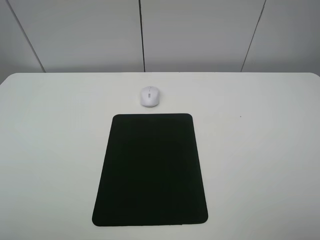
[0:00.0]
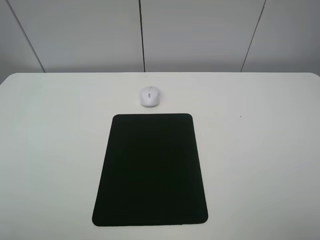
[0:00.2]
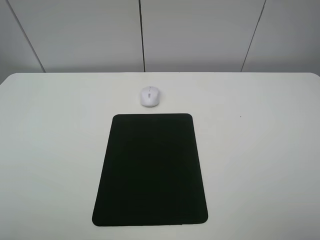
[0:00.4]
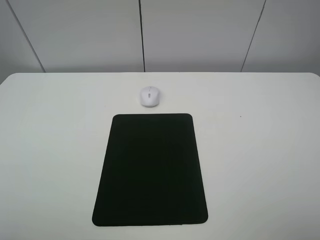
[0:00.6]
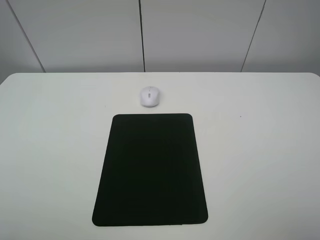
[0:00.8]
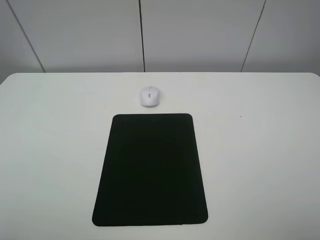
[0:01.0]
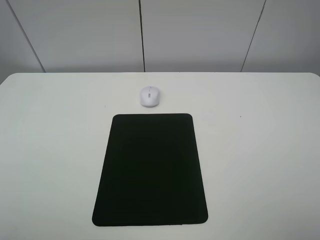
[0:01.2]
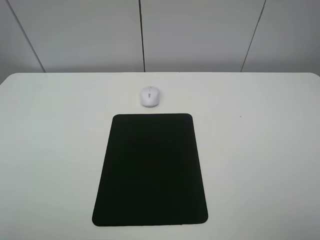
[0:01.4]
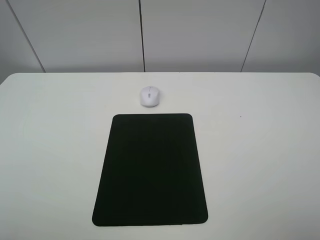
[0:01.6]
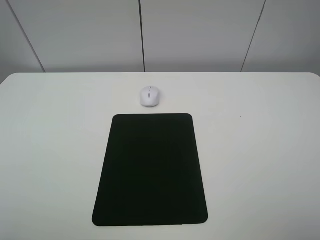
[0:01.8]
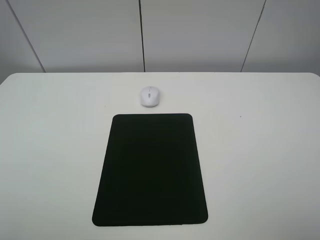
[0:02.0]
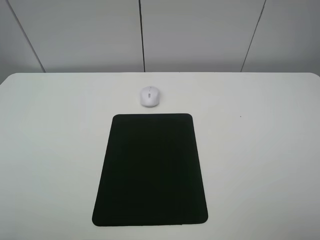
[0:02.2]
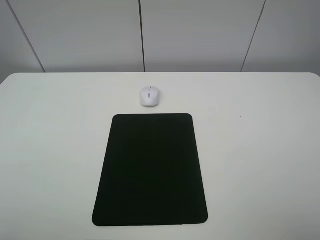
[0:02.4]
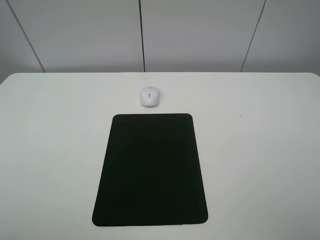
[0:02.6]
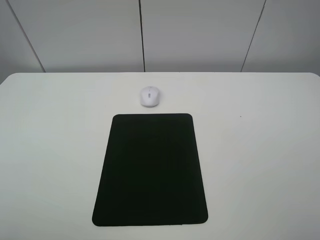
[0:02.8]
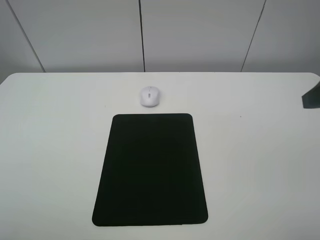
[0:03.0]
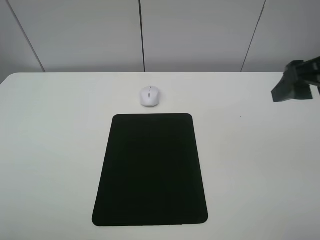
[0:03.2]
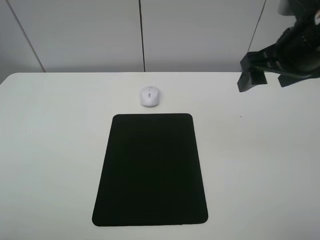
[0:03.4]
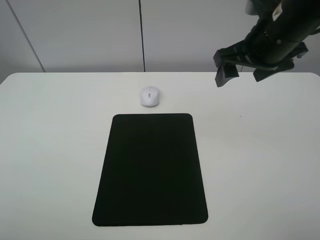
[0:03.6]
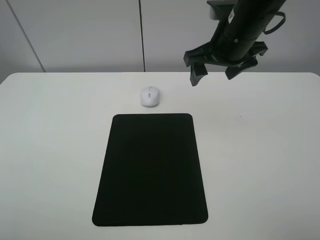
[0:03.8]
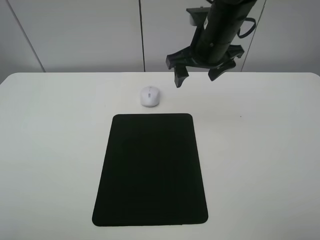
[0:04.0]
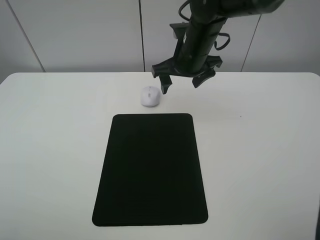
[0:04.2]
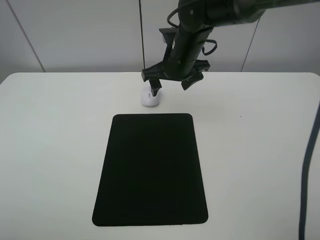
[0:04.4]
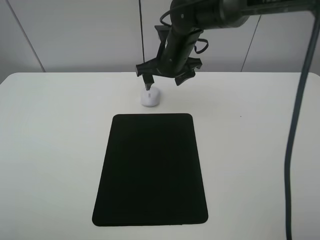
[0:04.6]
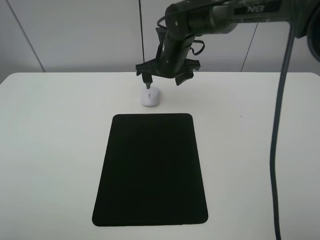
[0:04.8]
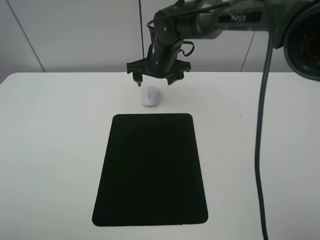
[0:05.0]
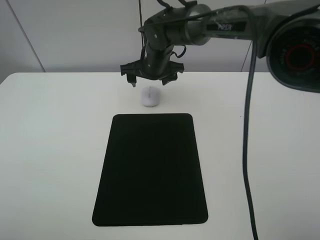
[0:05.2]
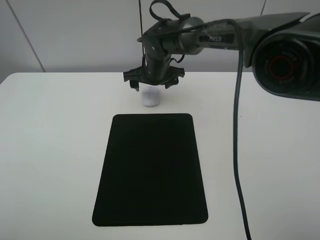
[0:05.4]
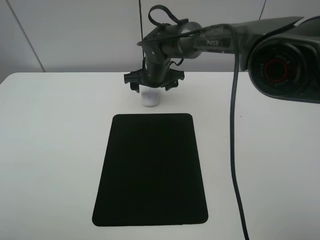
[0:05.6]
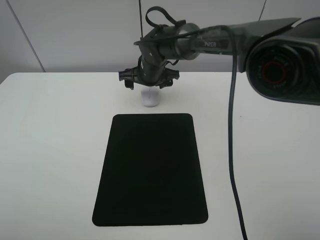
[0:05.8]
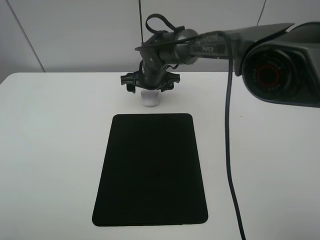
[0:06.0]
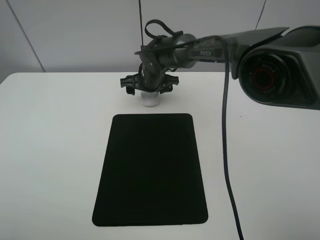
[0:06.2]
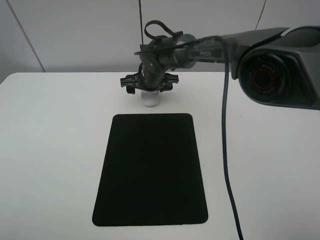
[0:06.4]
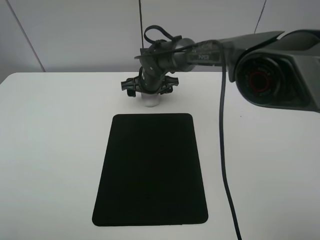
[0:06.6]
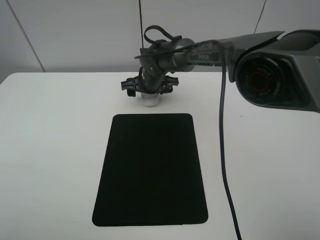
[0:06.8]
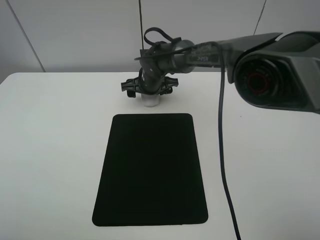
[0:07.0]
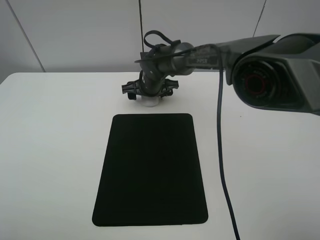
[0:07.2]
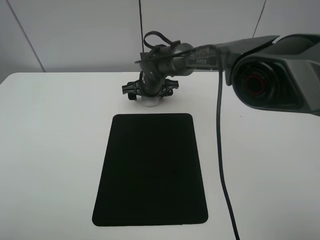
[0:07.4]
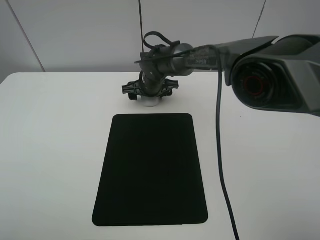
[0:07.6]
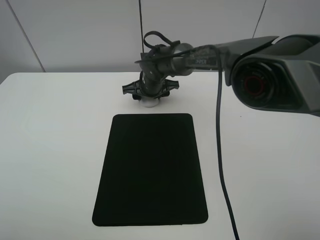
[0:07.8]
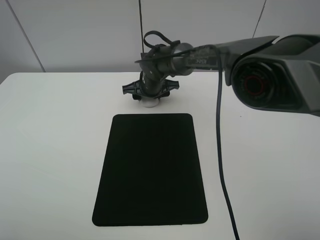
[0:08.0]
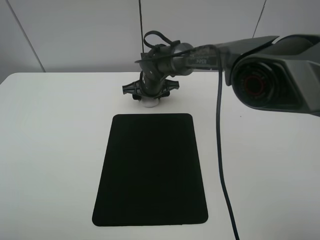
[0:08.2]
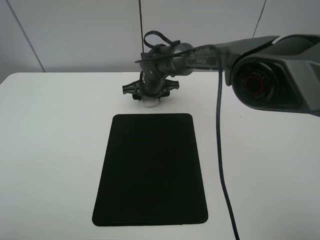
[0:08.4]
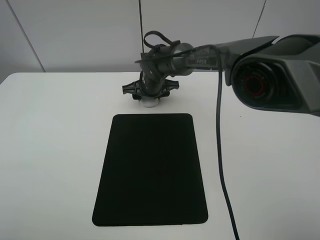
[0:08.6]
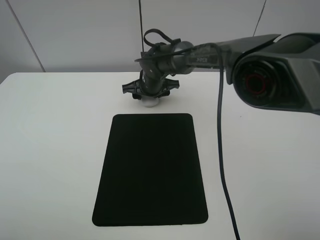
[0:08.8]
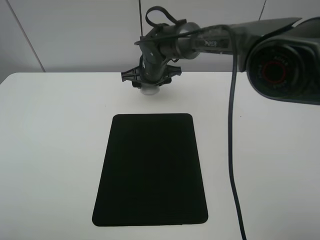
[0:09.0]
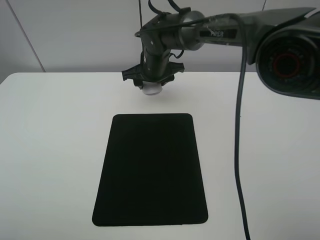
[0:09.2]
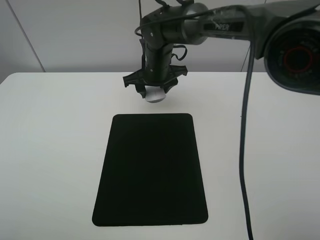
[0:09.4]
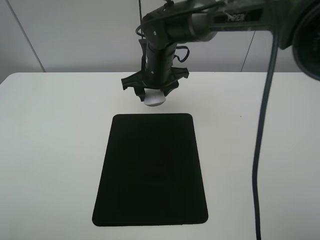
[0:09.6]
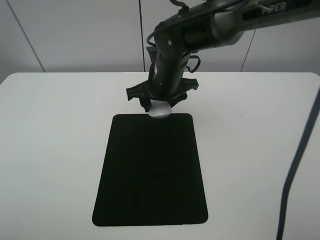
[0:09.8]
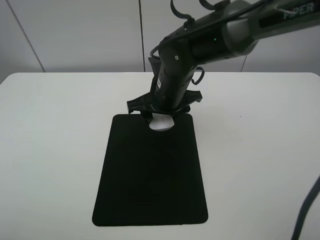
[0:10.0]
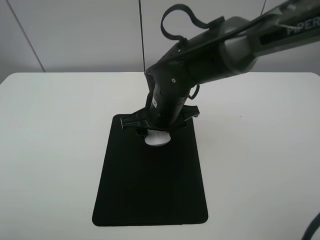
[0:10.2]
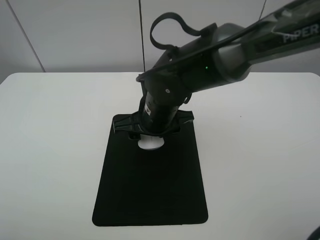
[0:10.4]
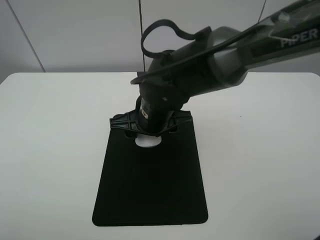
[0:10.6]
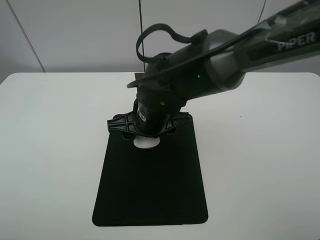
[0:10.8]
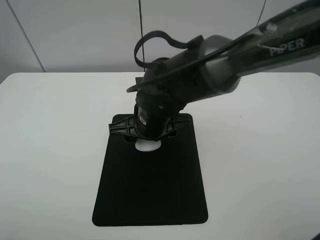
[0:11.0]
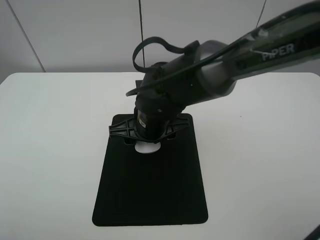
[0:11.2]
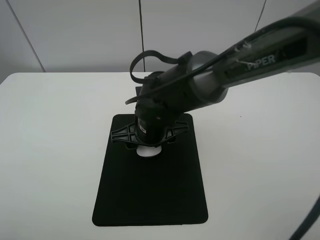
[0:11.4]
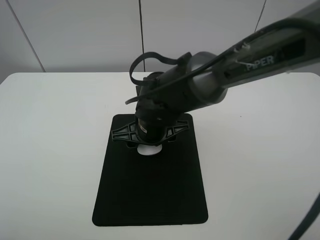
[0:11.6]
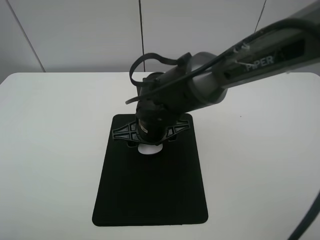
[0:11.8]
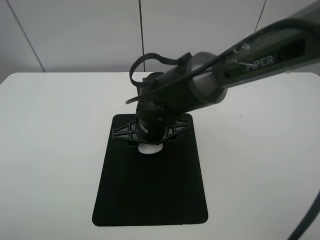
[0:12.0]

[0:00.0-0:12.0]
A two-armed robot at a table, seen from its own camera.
Step, 0:00.0 to 0:08.8: Grasp the mouse with the right gripper.
0:00.0 to 0:01.6: Neither gripper changes place.
0:03.0 to 0:04.4: The right gripper moves to the left, forward and downward, approximately 35 cm.
0:04.4 to 0:06.0: The right gripper shifts some 10 cm downward, to the left and forward.
0:06.0 to 0:07.6: The grippers move only a little.
0:07.6 to 0:09.0: The right gripper shifts approximately 5 cm upward, and closes.
0:09.0 to 0:10.4: The right gripper goes about 15 cm backward.
0:10.4 to 0:12.0: The grippers move only a little.

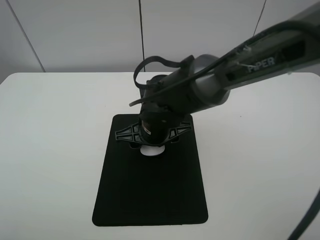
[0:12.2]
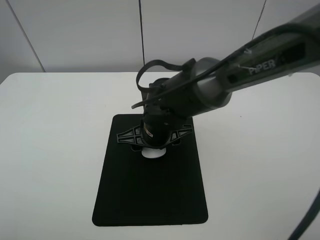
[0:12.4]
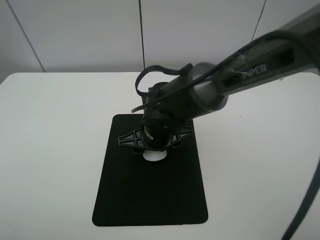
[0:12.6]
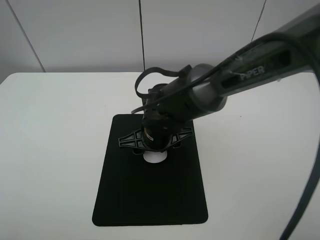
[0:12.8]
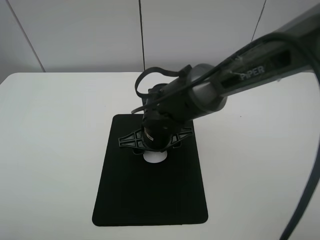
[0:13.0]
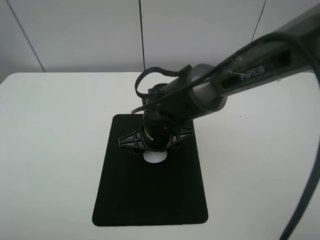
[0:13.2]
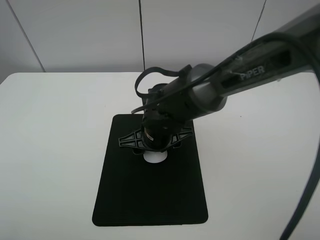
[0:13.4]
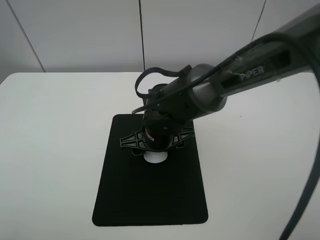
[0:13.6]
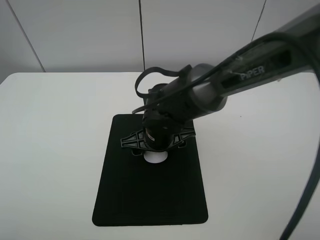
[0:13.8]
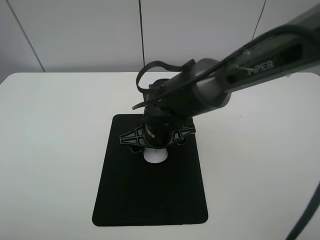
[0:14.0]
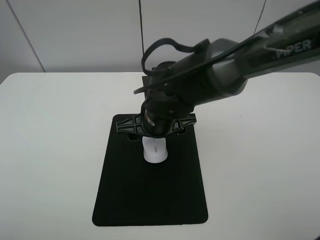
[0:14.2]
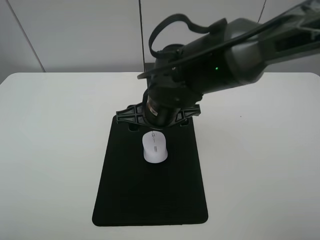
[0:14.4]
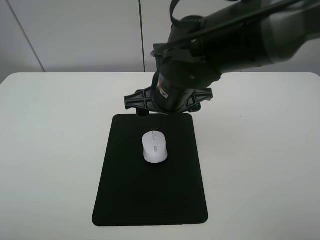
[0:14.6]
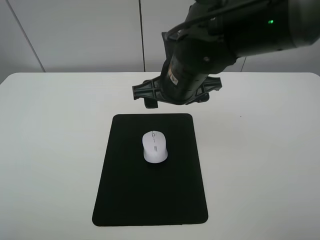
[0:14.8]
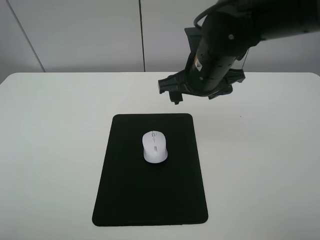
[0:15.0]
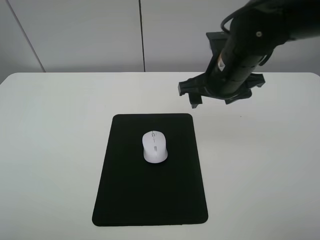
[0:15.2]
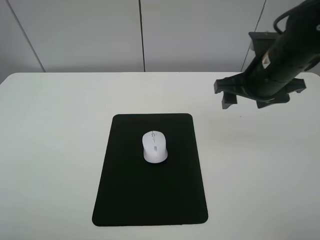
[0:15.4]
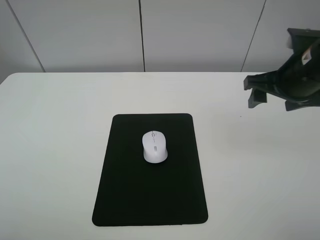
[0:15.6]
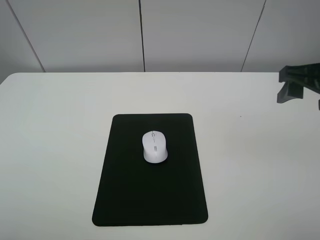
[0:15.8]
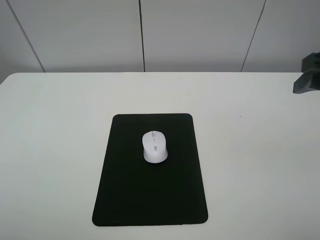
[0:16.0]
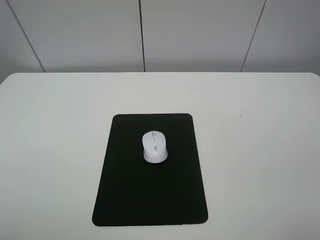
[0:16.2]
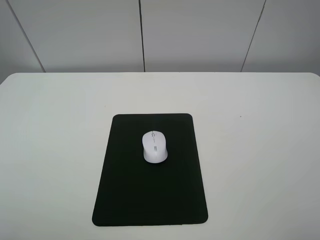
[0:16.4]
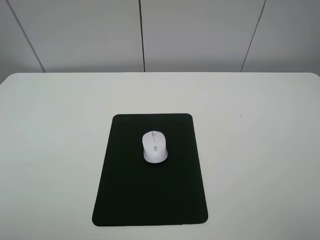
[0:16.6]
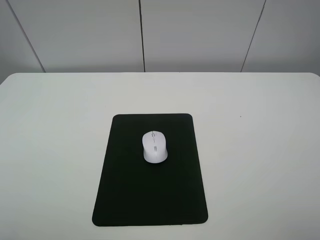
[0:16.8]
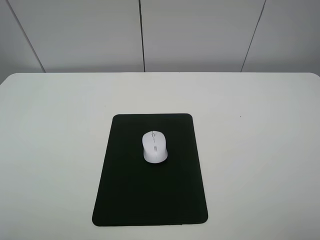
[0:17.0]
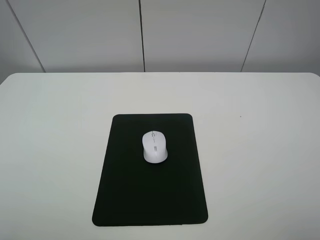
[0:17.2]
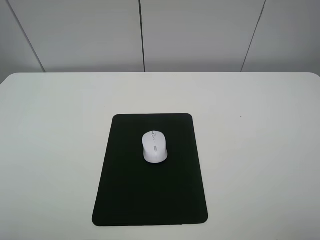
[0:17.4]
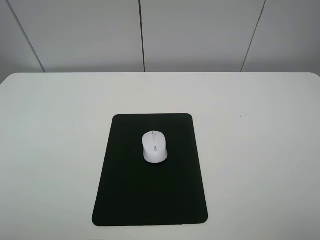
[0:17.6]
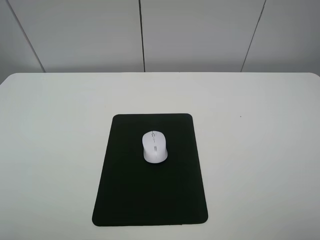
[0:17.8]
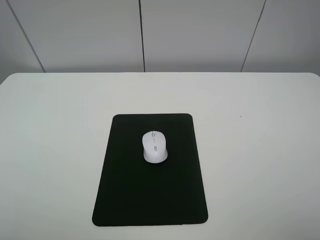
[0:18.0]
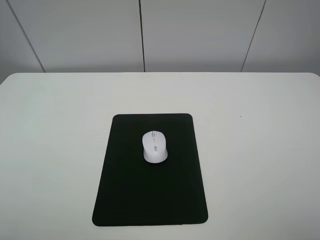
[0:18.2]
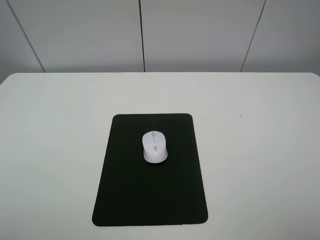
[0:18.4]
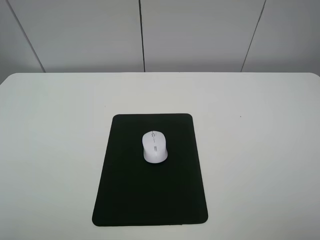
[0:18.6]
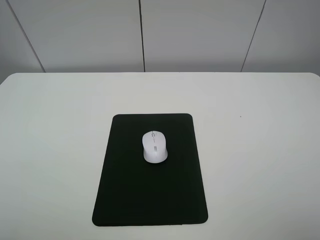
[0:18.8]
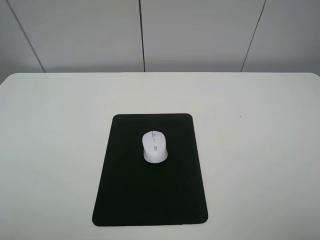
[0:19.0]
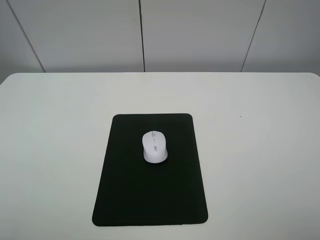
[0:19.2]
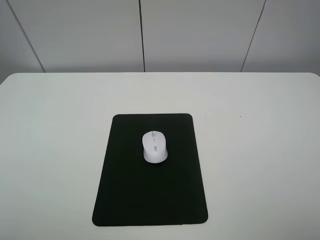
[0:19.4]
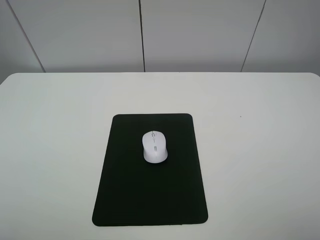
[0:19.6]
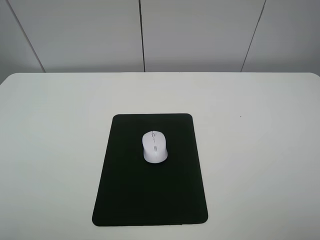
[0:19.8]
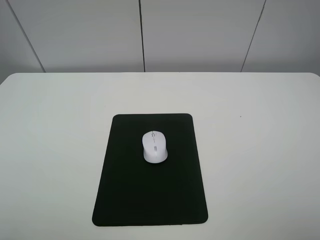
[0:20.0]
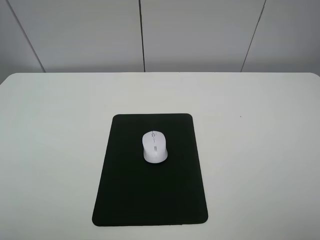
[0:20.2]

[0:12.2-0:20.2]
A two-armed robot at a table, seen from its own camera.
0:12.2 to 0:13.8: The right gripper opens up.
0:13.8 to 0:15.4: The right gripper heads to the right and upward, covering approximately 25 cm.
0:15.4 to 0:17.0: The right gripper heads backward and upward, covering some 30 cm.

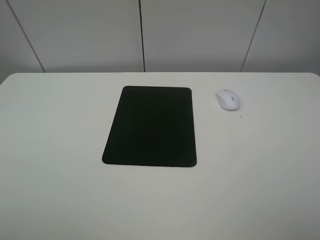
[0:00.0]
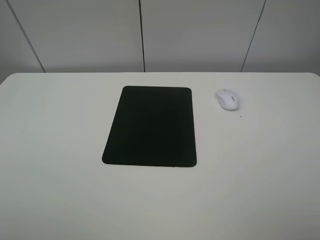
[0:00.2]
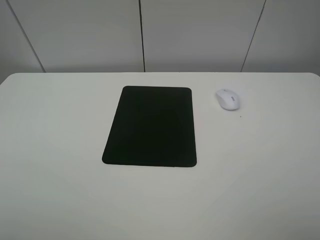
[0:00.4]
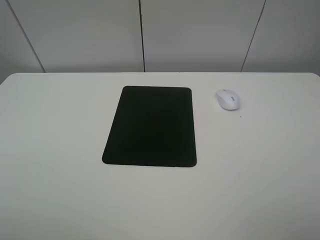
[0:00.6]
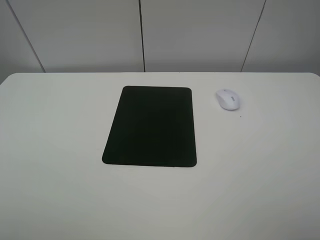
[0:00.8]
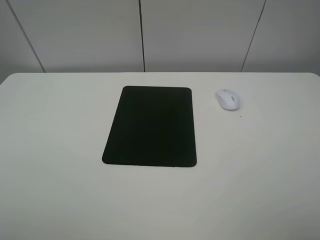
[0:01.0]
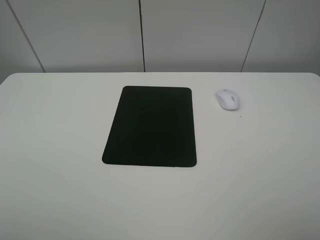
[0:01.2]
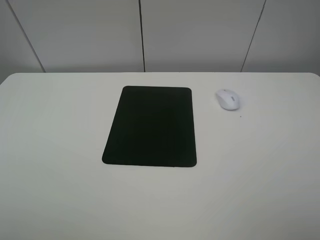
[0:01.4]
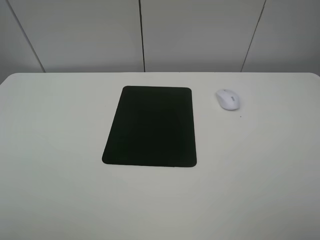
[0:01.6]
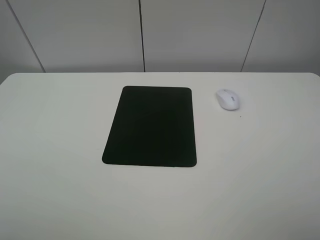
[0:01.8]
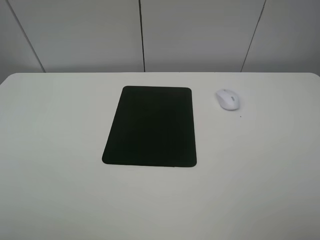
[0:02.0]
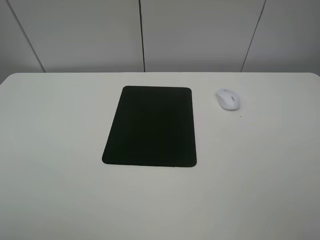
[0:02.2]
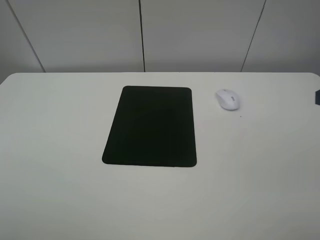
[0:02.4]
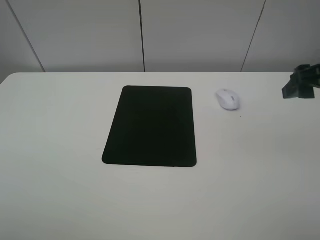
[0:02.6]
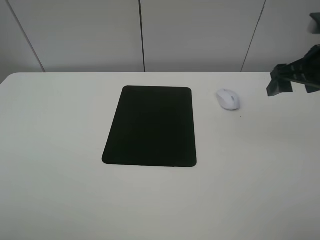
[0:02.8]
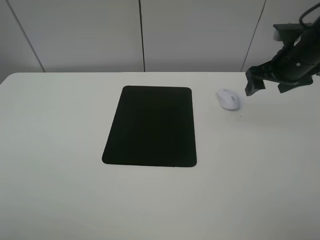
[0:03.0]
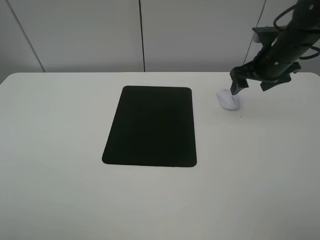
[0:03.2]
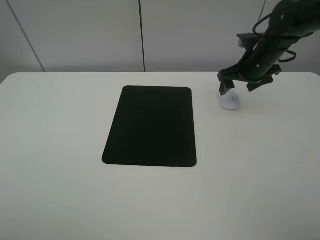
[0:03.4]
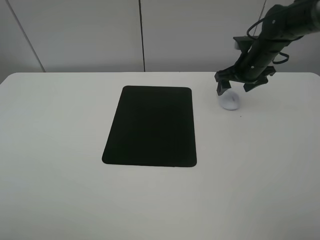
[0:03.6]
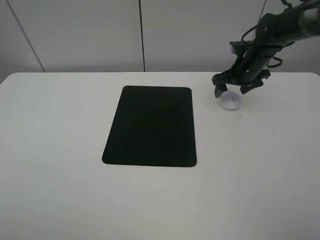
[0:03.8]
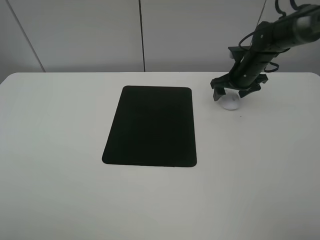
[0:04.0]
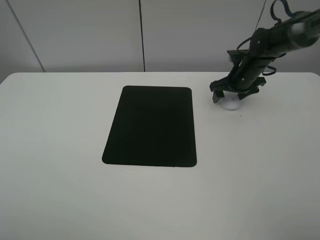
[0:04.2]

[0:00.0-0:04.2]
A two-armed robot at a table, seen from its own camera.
0:00.0 to 0:01.4: The two grippers keep their place.
0:01.4 to 0:02.8: The right gripper goes approximately 30 cm forward.
0:02.8 to 0:04.2: The right gripper is displaced forward and downward by approximately 20 cm.
